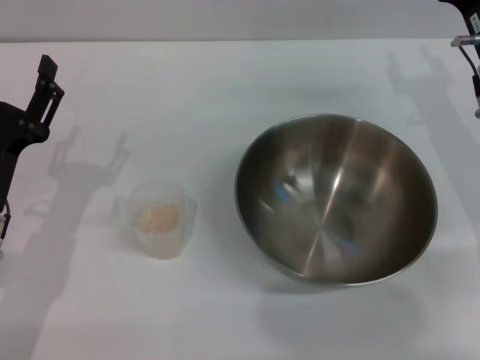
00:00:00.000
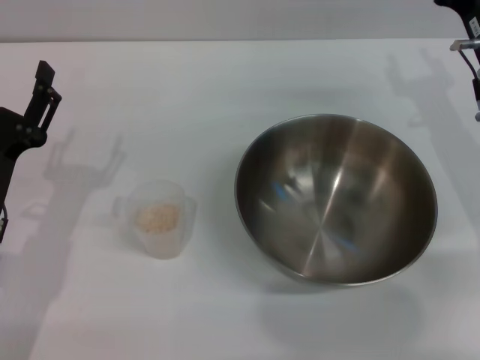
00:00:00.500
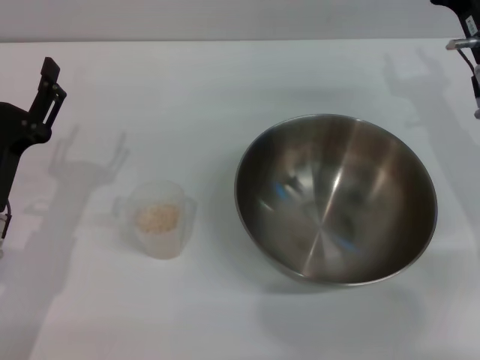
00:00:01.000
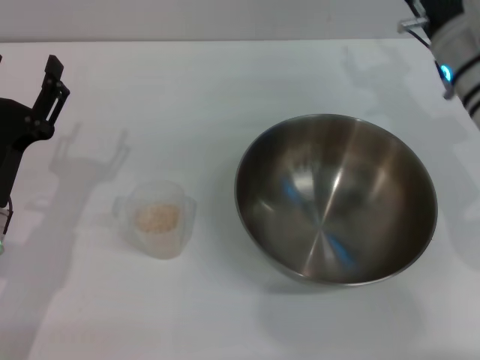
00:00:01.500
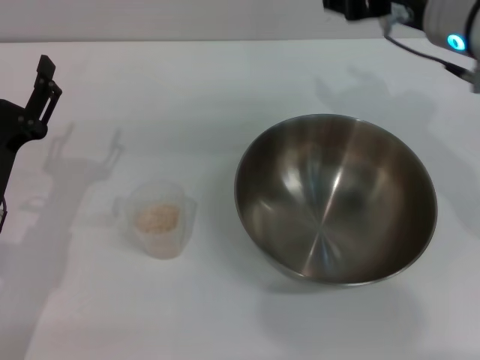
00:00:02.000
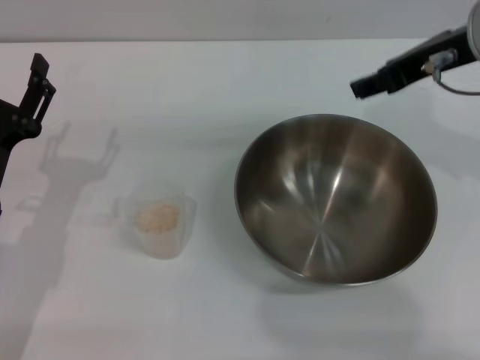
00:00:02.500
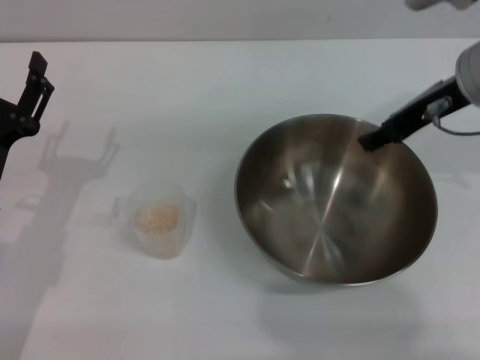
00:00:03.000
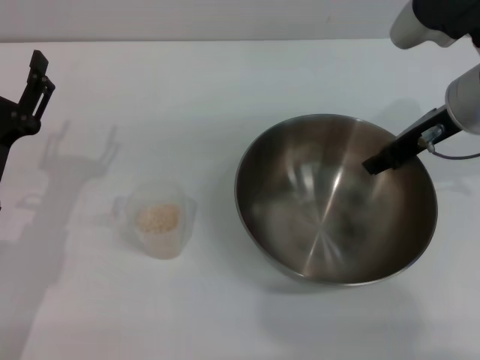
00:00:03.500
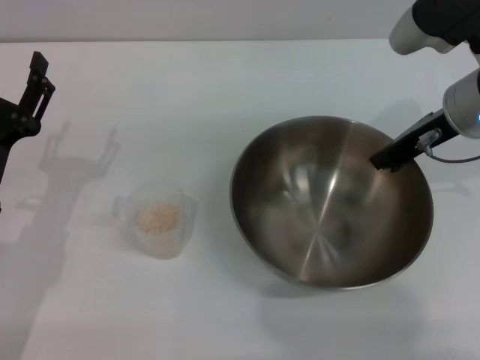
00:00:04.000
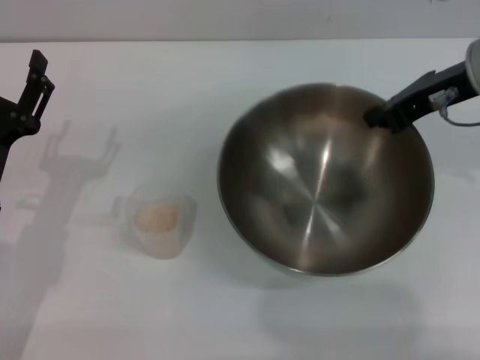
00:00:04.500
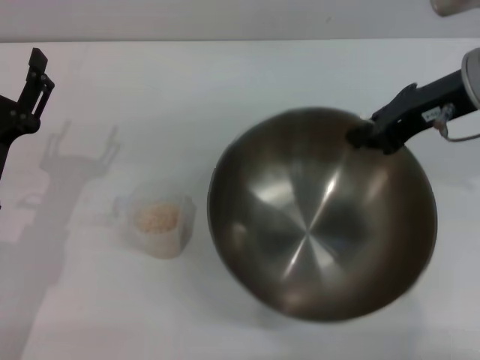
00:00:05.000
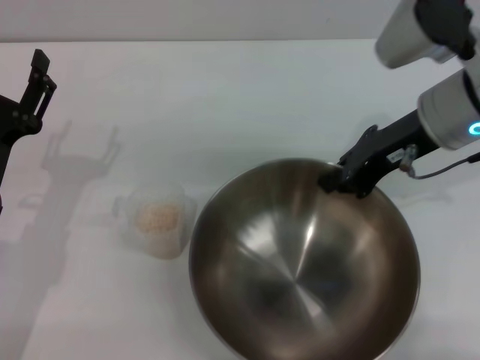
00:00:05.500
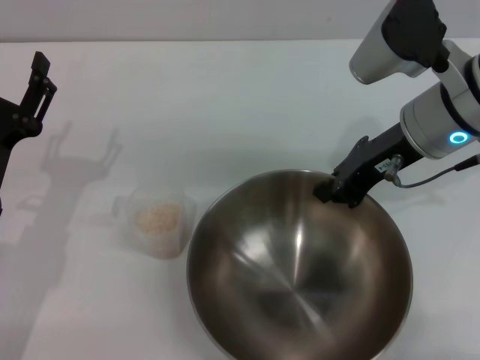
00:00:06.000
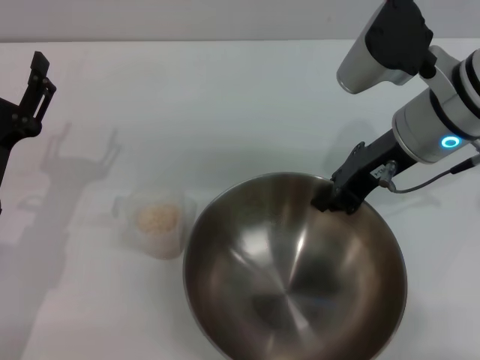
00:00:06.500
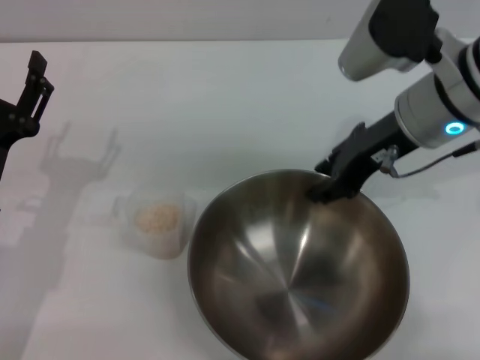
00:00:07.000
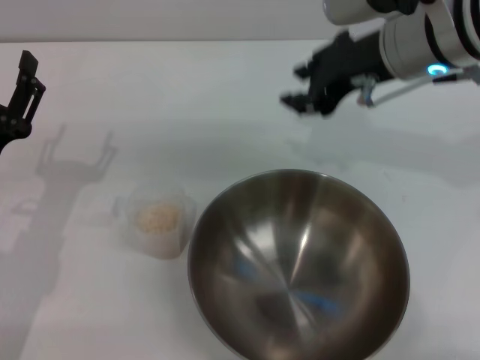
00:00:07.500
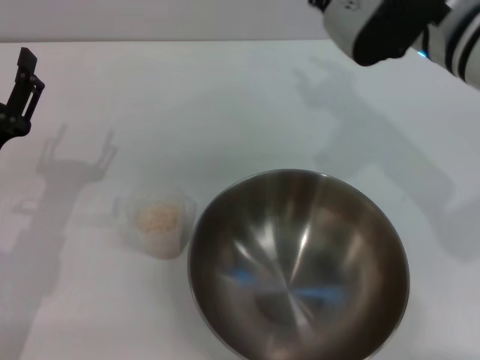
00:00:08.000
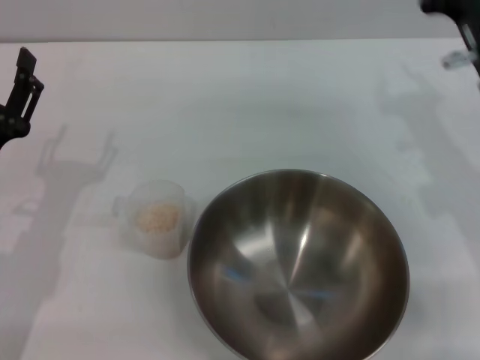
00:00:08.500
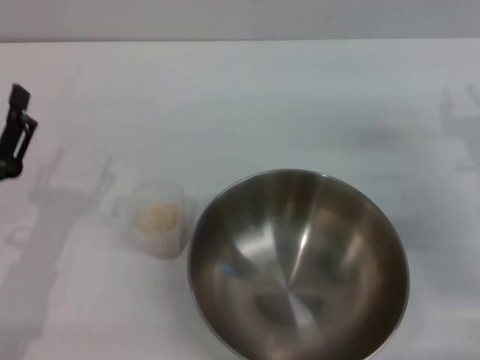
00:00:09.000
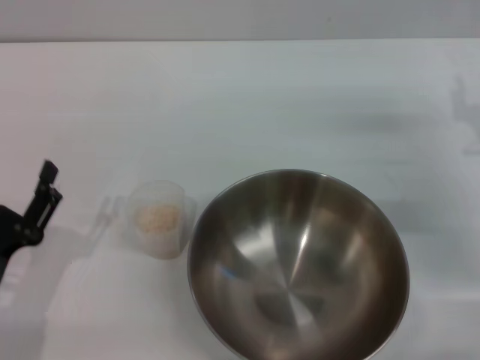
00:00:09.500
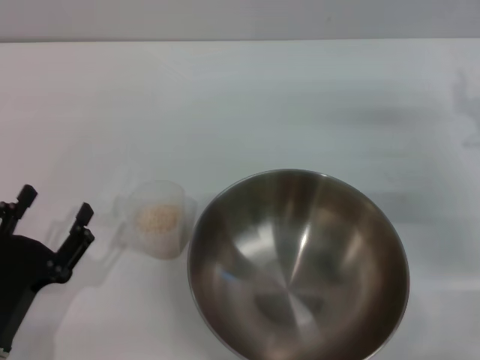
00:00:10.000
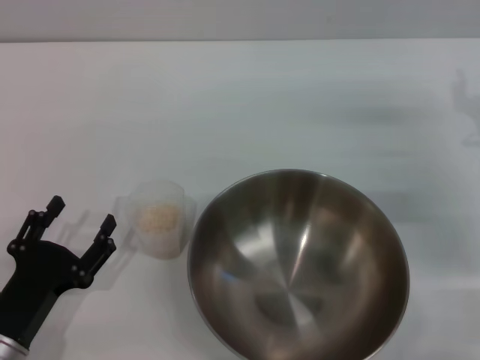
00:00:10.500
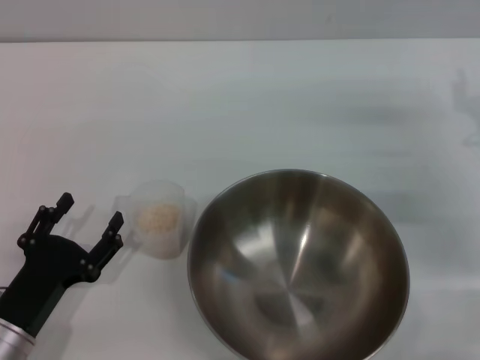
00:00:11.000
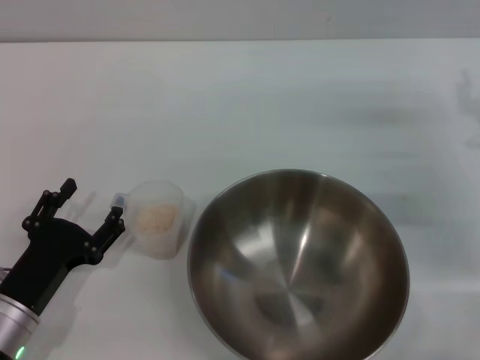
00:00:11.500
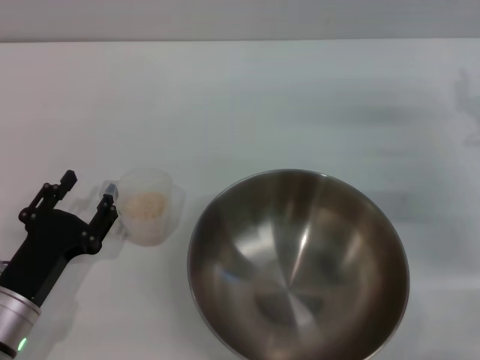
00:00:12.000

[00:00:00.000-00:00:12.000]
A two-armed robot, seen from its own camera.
Task of the whole recording: Place the bowl in the middle of the table with one hand and pour the rice from the grain cup into it with the other hand.
Step, 00:00:00.000 to 00:00:04.000: Pick up the bowl with the right gripper.
Step, 00:00:05.000 to 00:00:07.000: Place the bowl in the center of view with the right gripper.
00:00:00.000 to 00:00:02.000: The right gripper heads upward and to the left, covering some 15 cm.
00:00:02.000 to 00:00:04.000: The right gripper travels downward by roughly 5 cm, and closes up.
00:00:06.000 to 00:00:08.000: The right gripper changes place by about 5 cm, and opens up.
00:00:08.000 to 00:00:10.000: The right gripper is displaced to the right and downward by roughly 20 cm. Meanwhile the left gripper is displaced backward and downward by approximately 10 cm.
00:00:10.000 to 00:00:12.000: The grippers stay close to where they were, moving slightly.

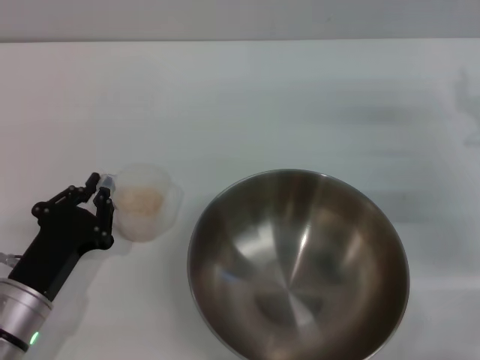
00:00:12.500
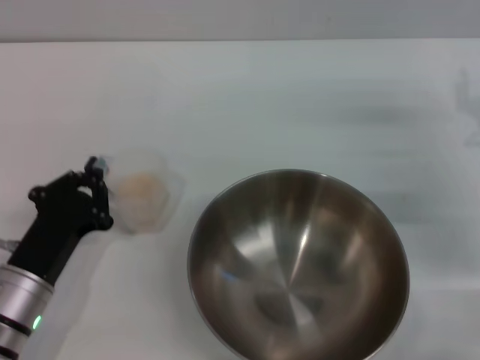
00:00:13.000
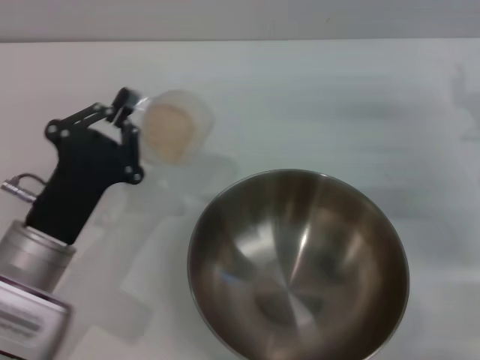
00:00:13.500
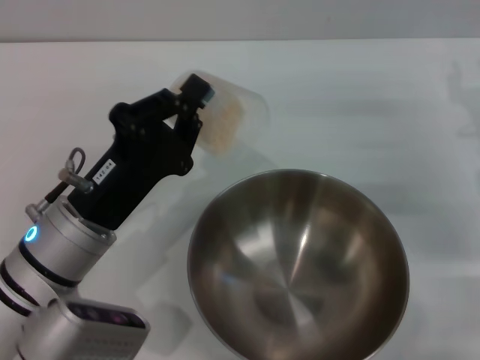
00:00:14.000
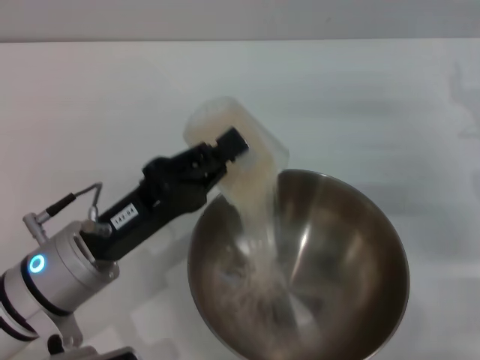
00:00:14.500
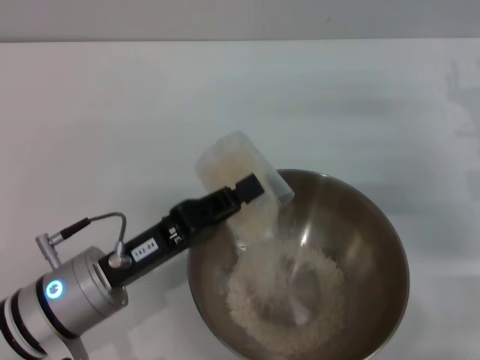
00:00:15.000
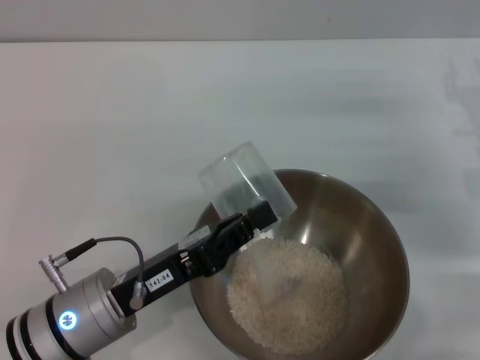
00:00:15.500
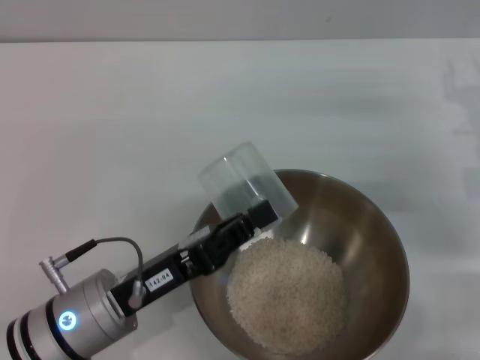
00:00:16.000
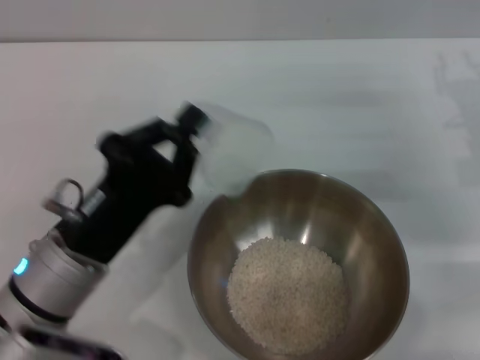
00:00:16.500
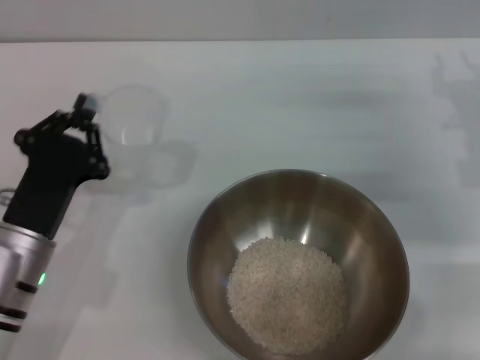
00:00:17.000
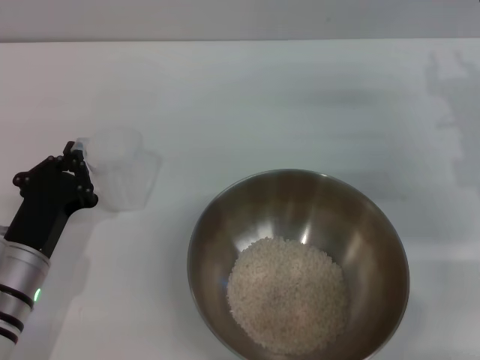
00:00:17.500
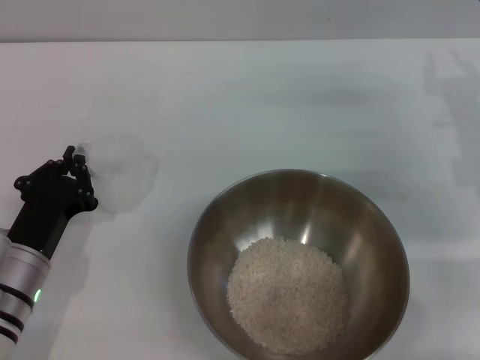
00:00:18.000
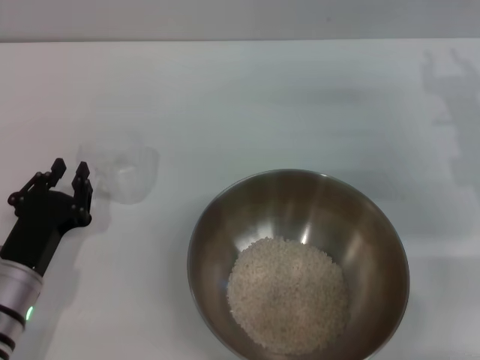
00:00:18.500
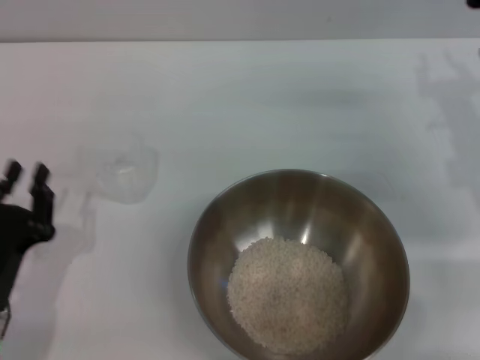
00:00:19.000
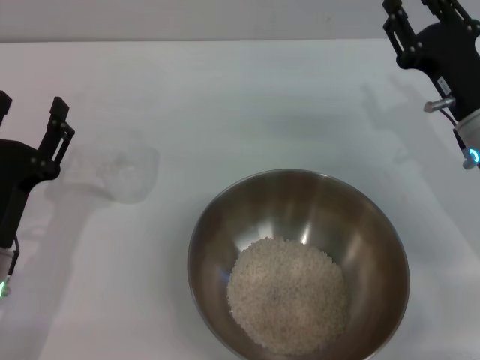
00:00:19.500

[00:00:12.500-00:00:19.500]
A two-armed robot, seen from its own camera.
Task of the whole recording: Place the bowl in the middle of the table with one hand and pour the rice from the grain cup into it with the other hand.
Step, 00:00:13.500 to 00:00:16.000: Pour the rice from the cup into the bowl with the left gripper.
Step, 00:00:16.500 to 00:00:18.500: Place the cup on the table with the left gripper.
00:00:12.500 to 00:00:14.500: The left gripper moves upward and to the right, about 10 cm.
00:00:16.000 to 00:00:17.500: The left gripper goes approximately 5 cm to the left.
00:00:17.500 to 00:00:19.500: The left gripper opens its fingers; the right gripper shifts by about 5 cm.
